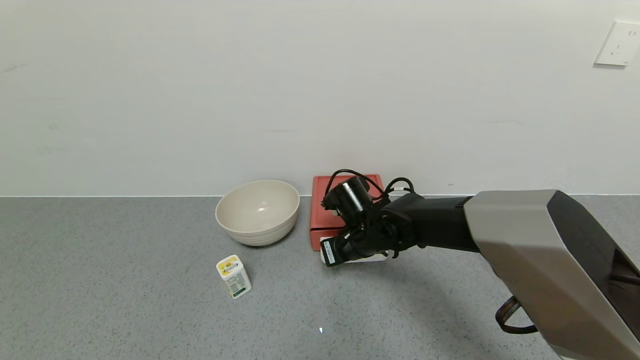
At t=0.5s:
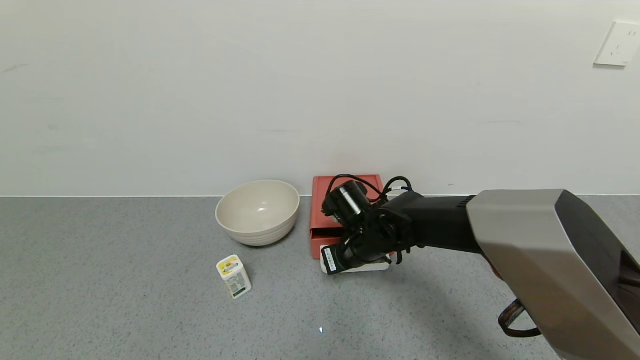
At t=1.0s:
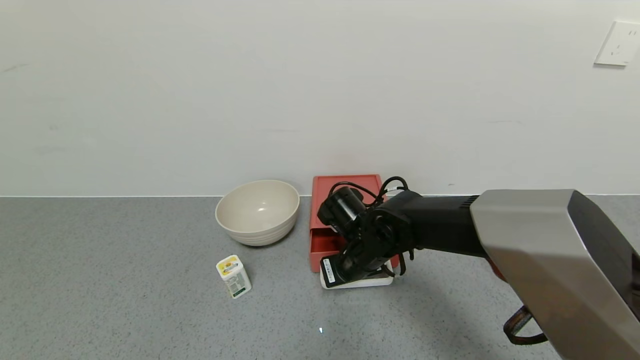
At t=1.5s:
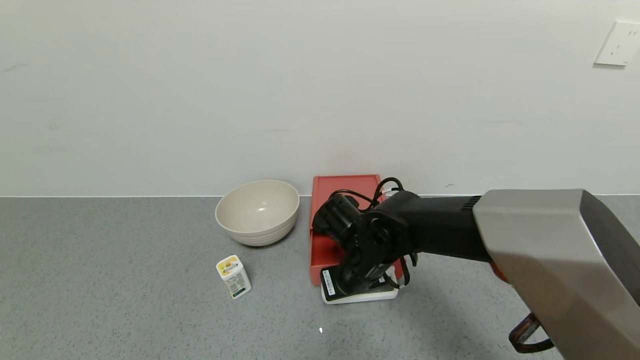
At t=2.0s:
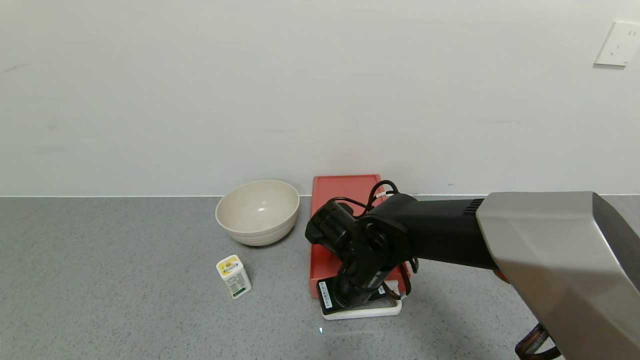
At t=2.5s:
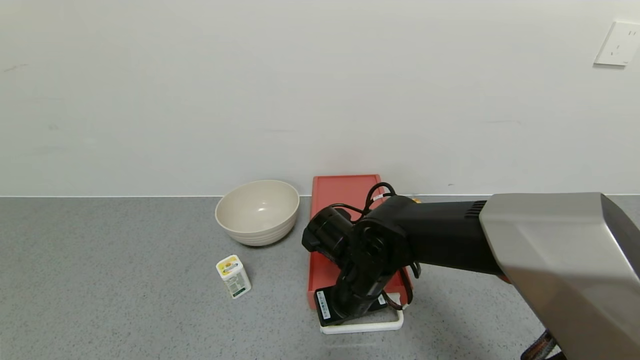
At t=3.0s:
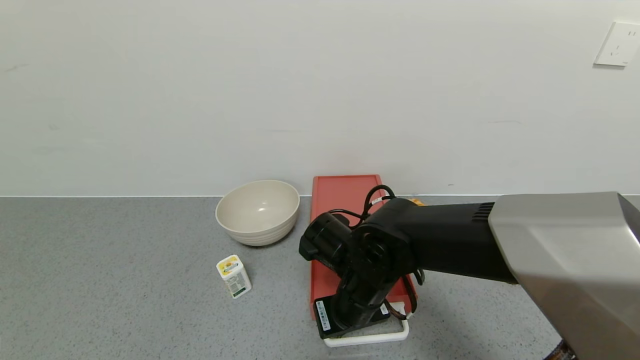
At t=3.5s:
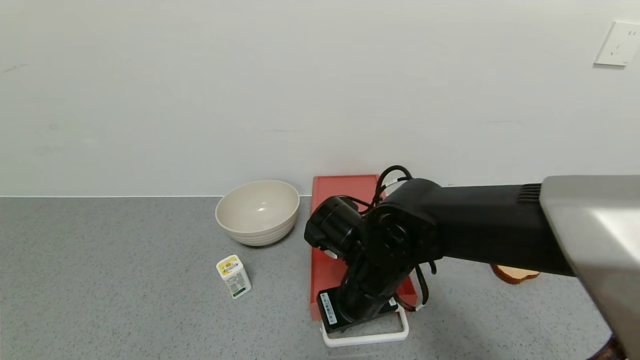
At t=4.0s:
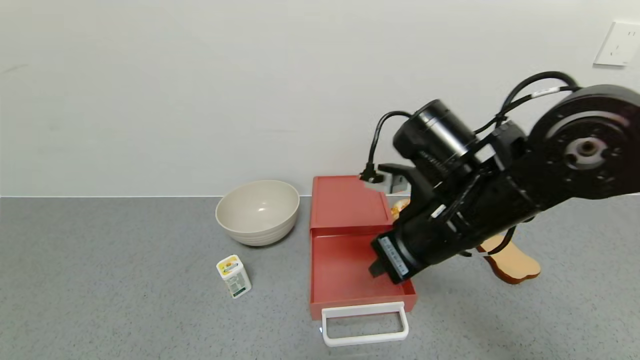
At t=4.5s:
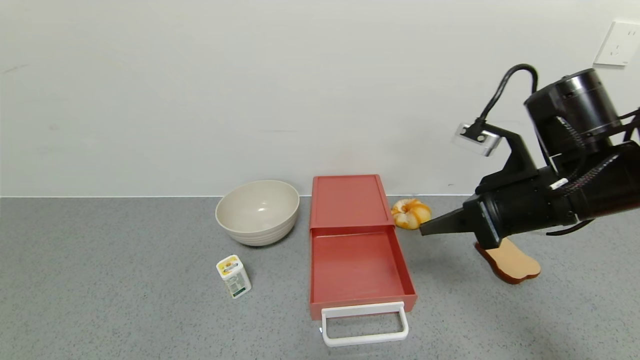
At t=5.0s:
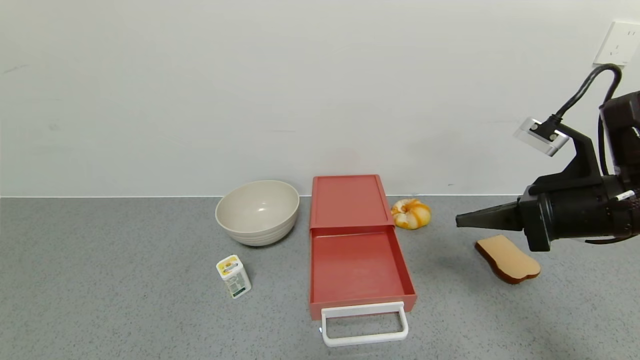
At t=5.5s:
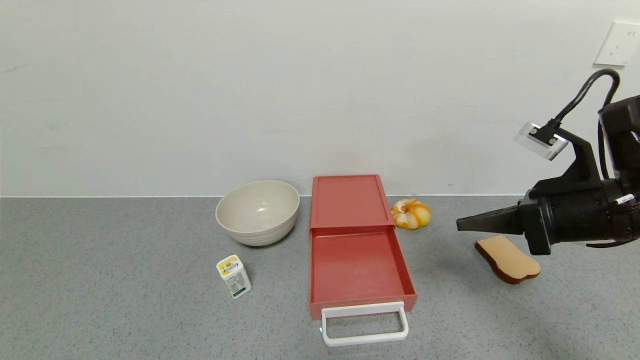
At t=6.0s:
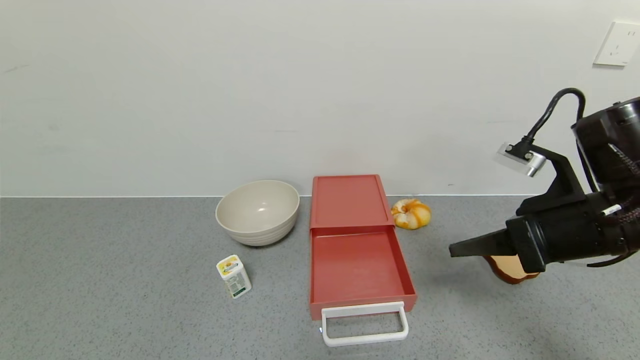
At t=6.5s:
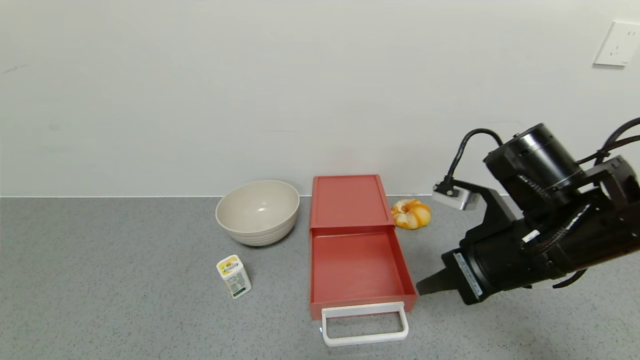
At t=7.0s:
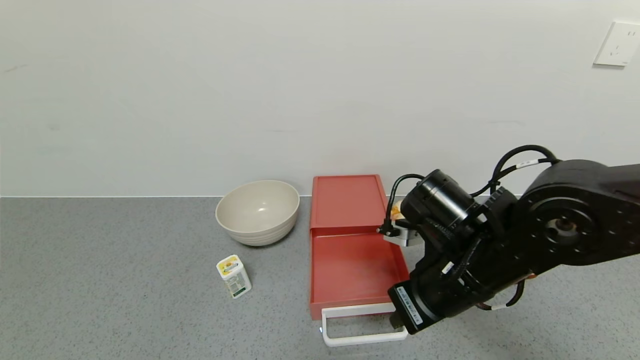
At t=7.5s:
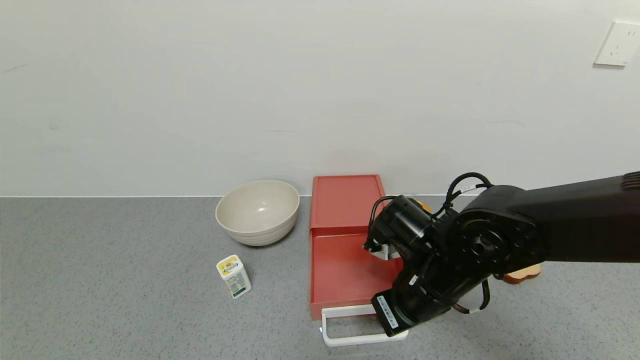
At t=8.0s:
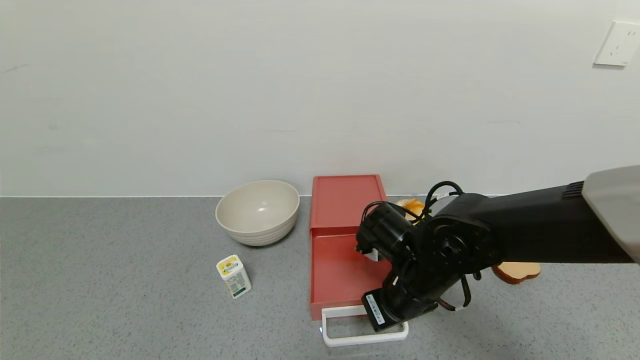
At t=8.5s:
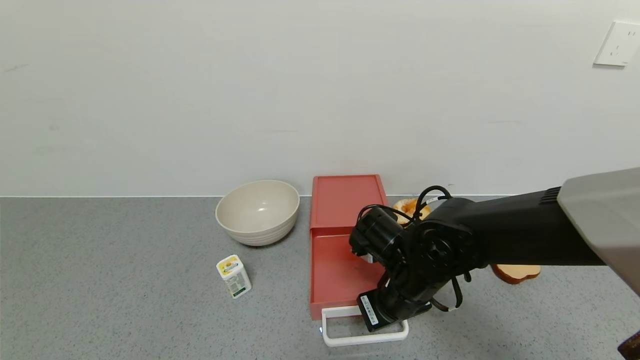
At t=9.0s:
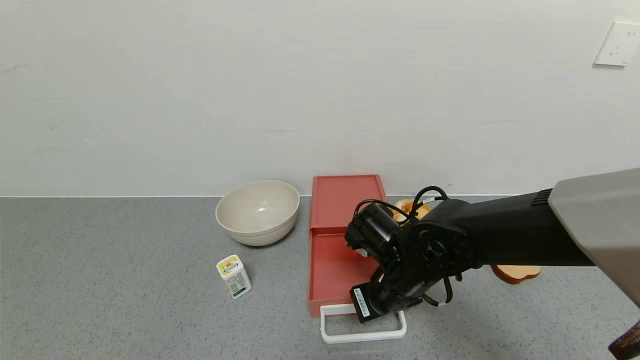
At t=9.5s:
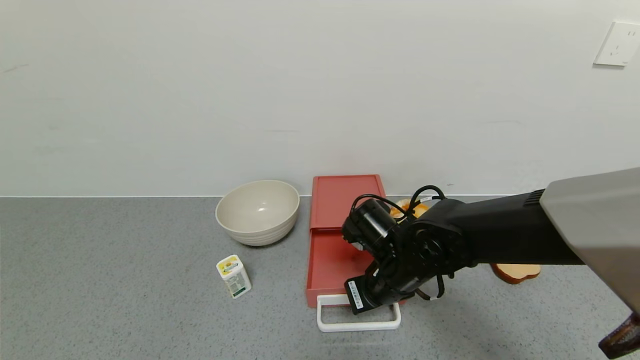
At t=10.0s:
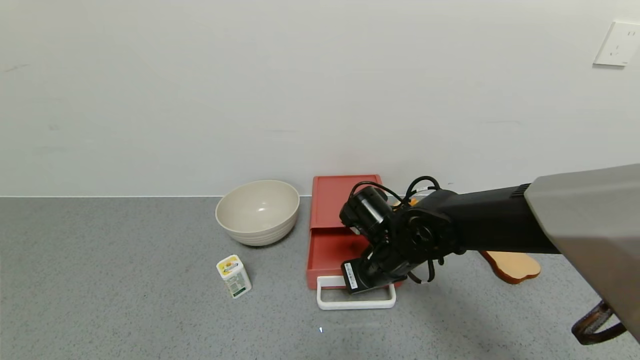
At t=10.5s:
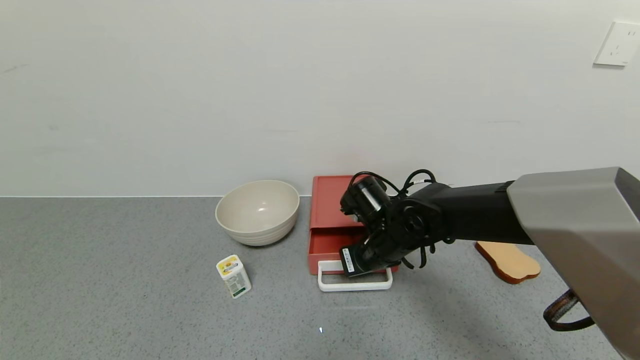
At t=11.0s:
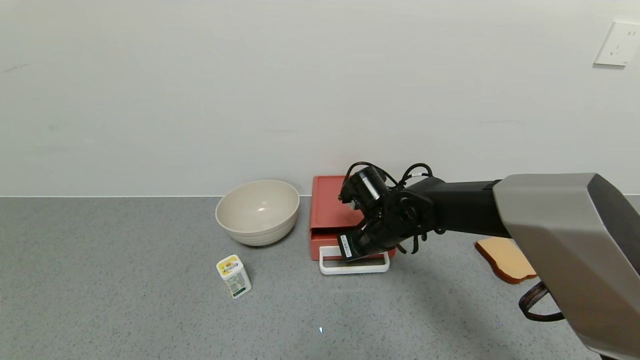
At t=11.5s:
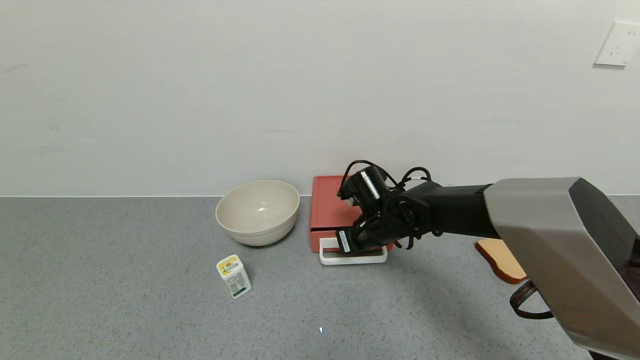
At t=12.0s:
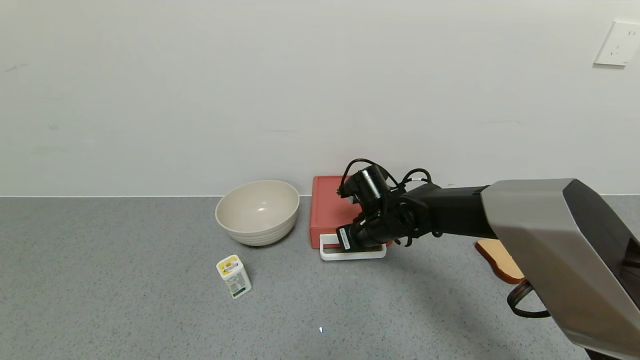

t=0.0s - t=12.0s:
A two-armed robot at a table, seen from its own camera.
Task of the whole recording: use the gripper to open the drawer and close the red drawer.
Step, t=0.0s - t=4.0s: Open the red drawer with the right gripper.
t=0.0s - t=2.0s: The right gripper moves backward, approximately 5 cm.
t=2.0s - t=4.0s: The right gripper travels upward and to the right by about 15 cm.
t=4.0s - t=6.0s: The right gripper travels to the right by about 15 cm.
t=6.0s - t=8.0s: The right gripper travels to the left and downward by about 20 cm.
t=8.0s - t=10.0s: The right gripper shifts by some 5 cm.
t=10.0s - t=12.0s: The right gripper shifts approximately 10 cm forward.

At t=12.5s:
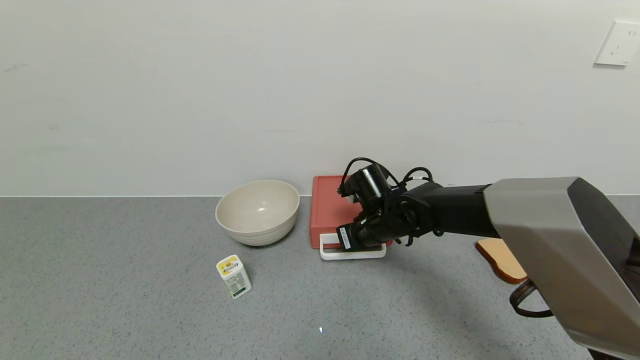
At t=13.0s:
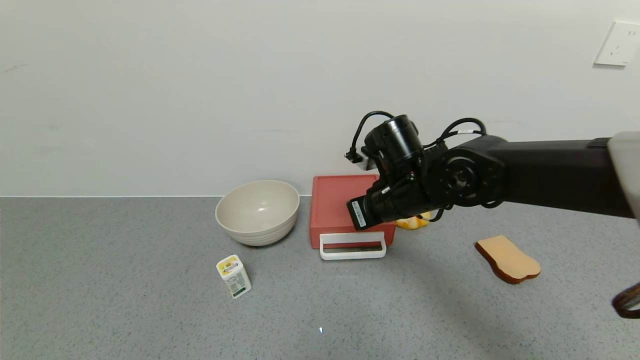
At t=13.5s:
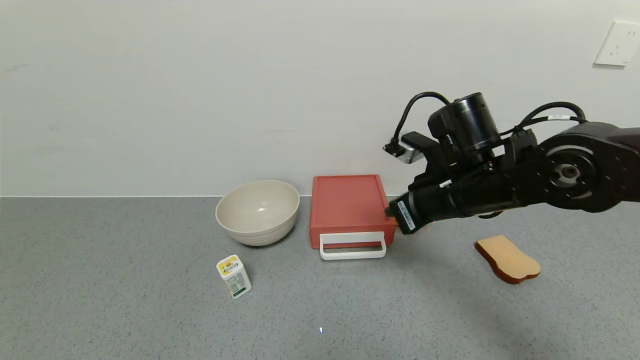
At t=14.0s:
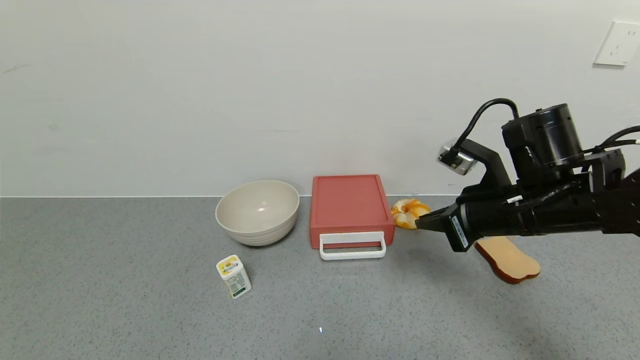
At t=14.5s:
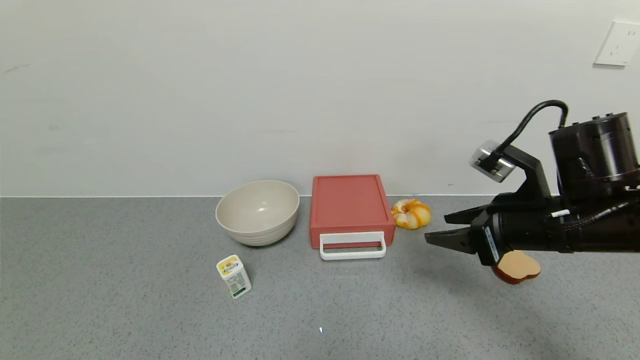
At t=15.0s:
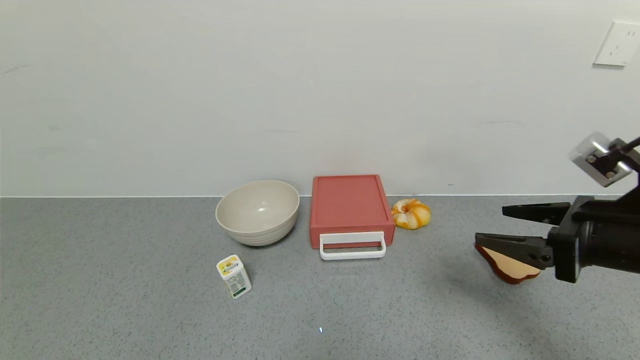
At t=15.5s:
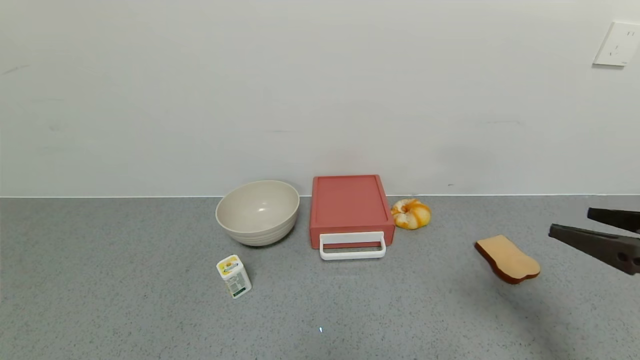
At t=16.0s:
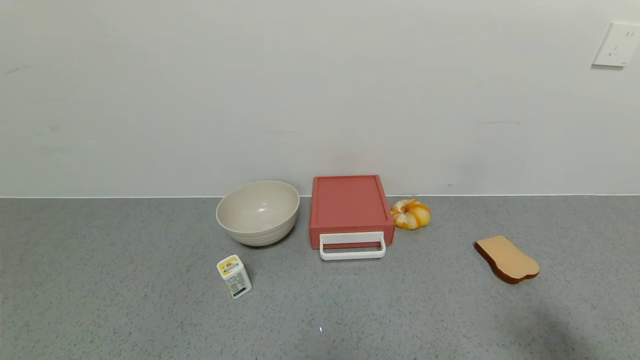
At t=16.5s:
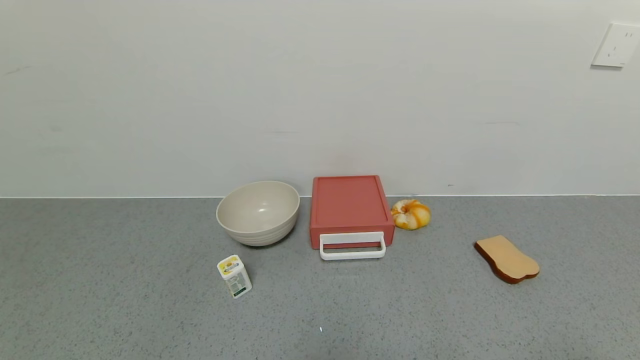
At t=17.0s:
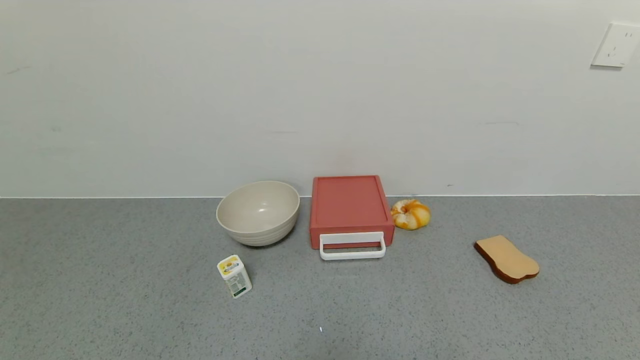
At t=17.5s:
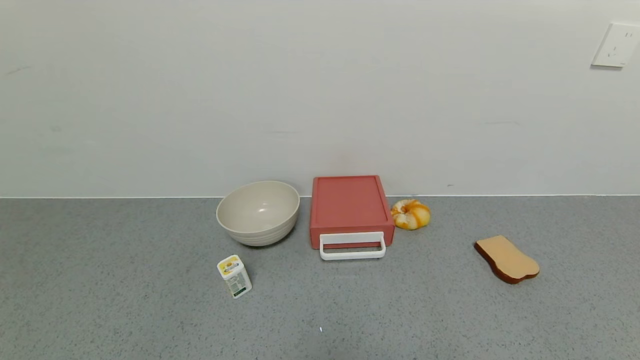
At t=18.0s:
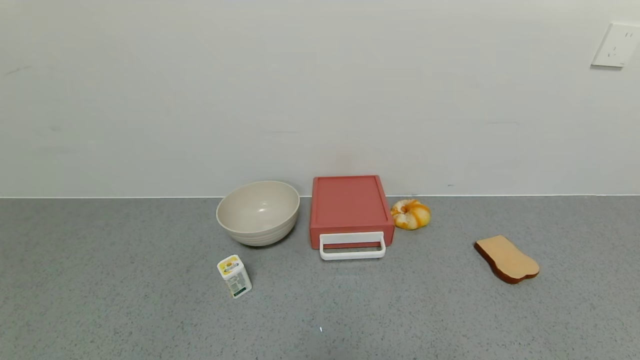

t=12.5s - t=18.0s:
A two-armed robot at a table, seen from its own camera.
Task of the whole recording: use the gripper to open the drawer and close the red drawer.
t=12.5s - t=14.5s: The right gripper shifts some 25 cm to the right, backward and upward, and opens.
t=14.5s - t=16.0s: The right gripper heads backward and to the right, covering roughly 25 cm.
t=16.0s - t=18.0s: The right gripper is displaced downward and backward by roughly 20 cm.
